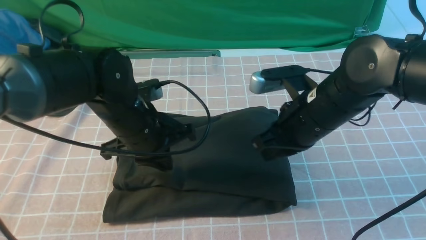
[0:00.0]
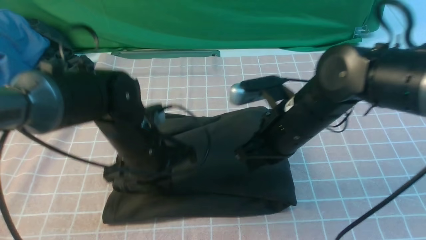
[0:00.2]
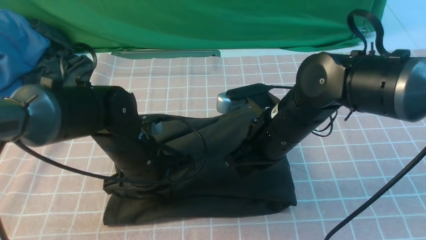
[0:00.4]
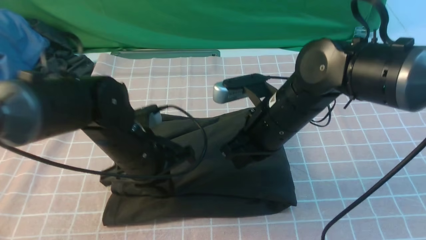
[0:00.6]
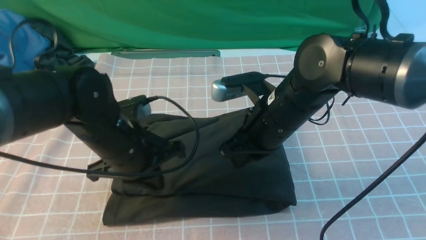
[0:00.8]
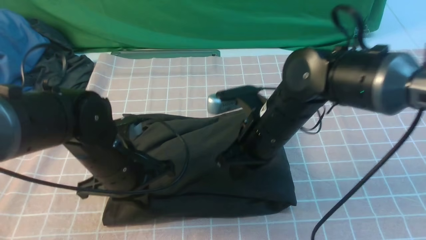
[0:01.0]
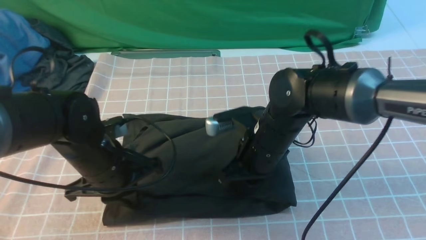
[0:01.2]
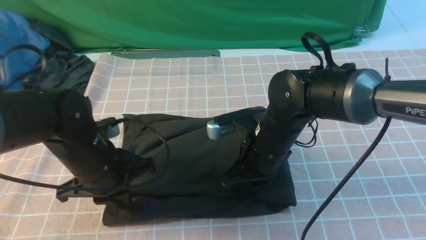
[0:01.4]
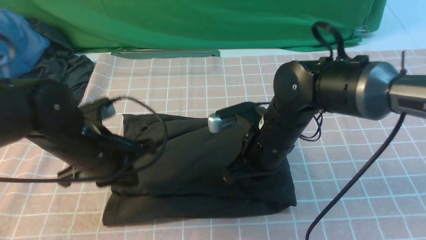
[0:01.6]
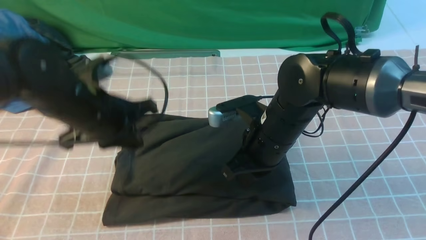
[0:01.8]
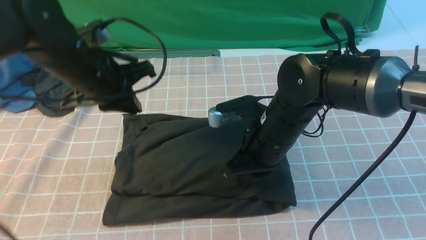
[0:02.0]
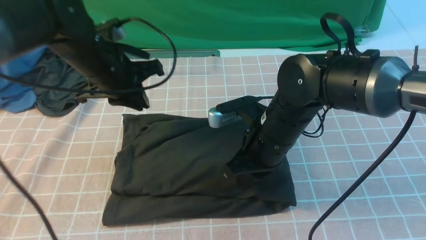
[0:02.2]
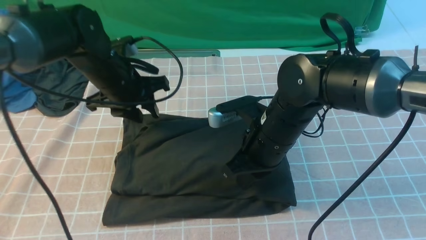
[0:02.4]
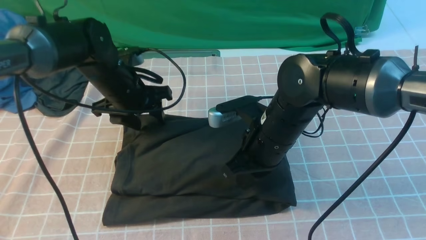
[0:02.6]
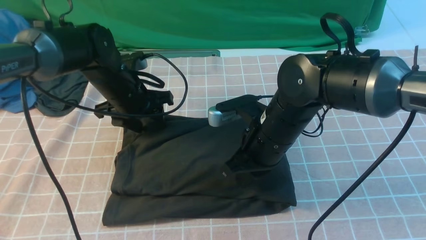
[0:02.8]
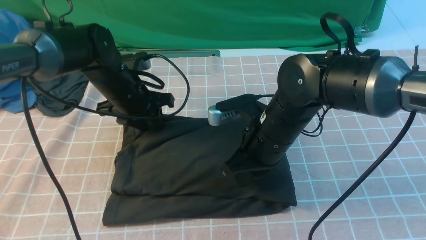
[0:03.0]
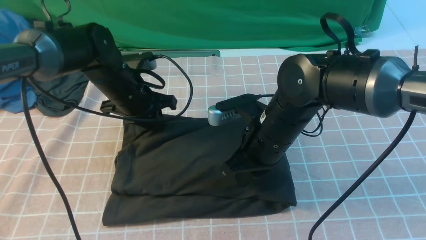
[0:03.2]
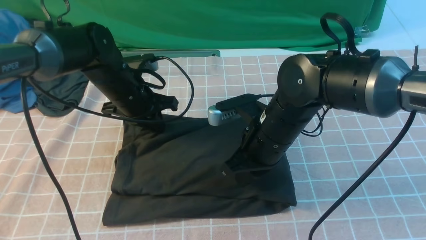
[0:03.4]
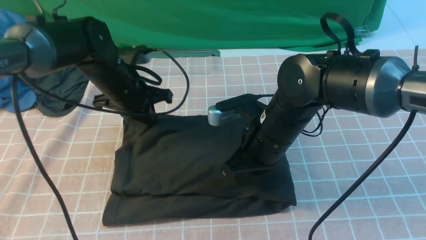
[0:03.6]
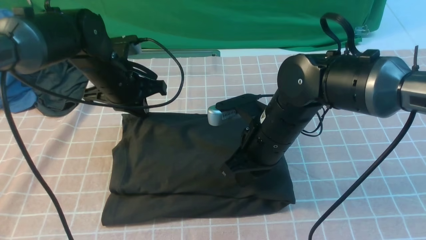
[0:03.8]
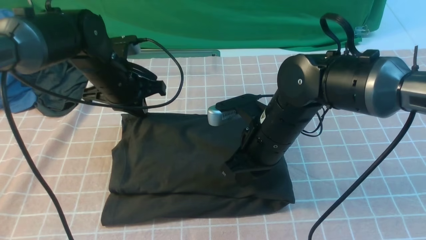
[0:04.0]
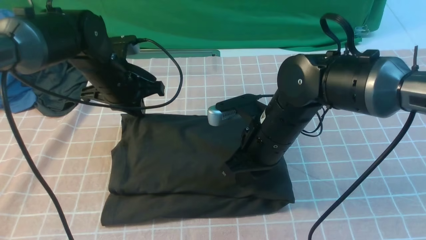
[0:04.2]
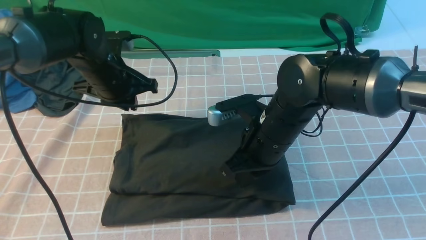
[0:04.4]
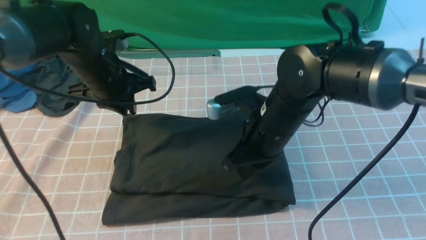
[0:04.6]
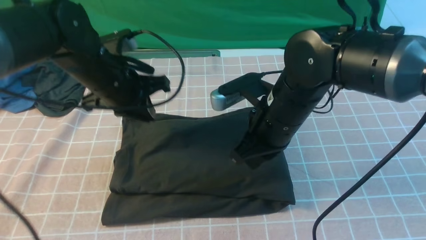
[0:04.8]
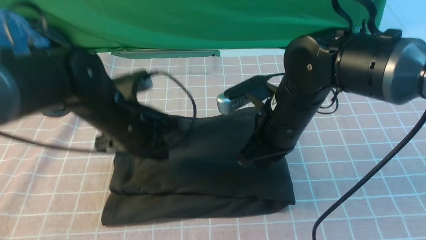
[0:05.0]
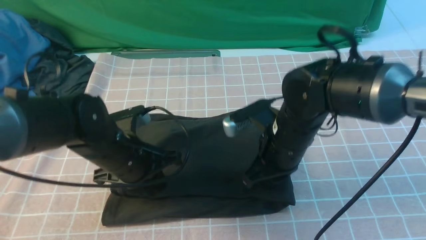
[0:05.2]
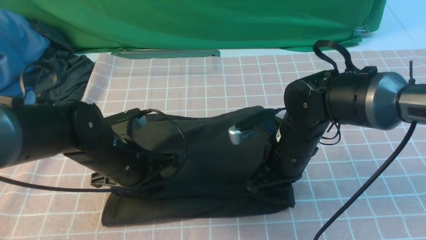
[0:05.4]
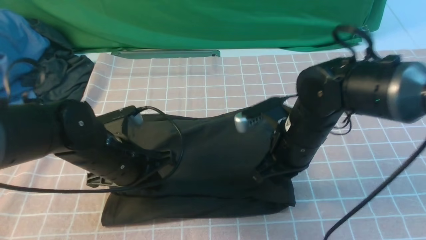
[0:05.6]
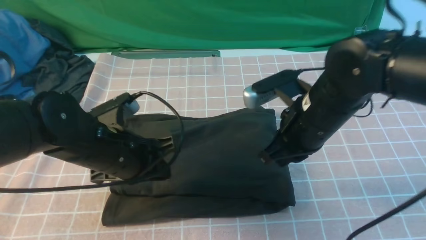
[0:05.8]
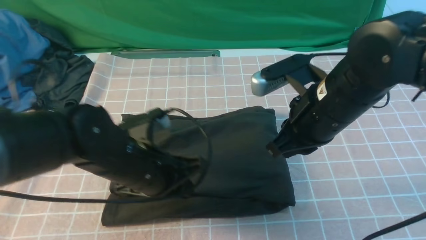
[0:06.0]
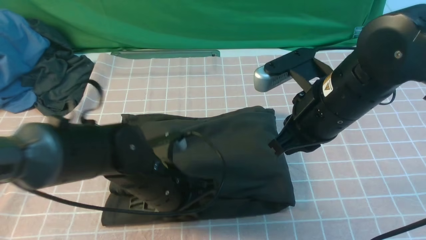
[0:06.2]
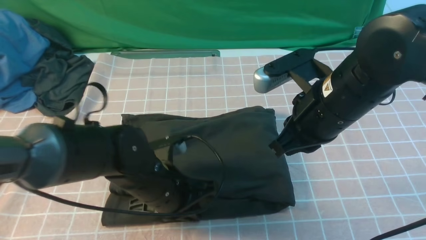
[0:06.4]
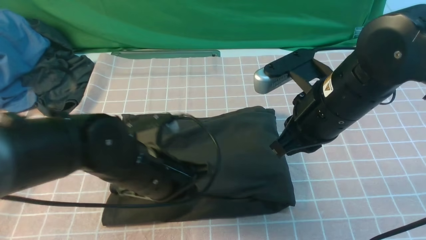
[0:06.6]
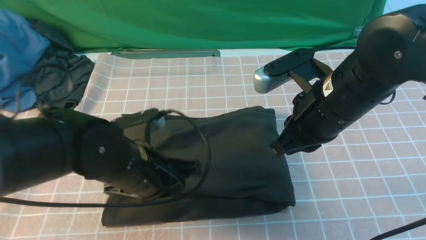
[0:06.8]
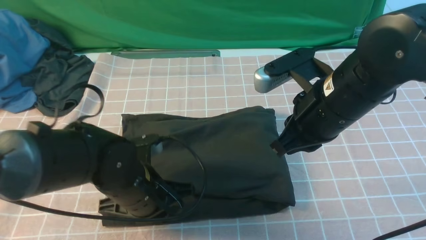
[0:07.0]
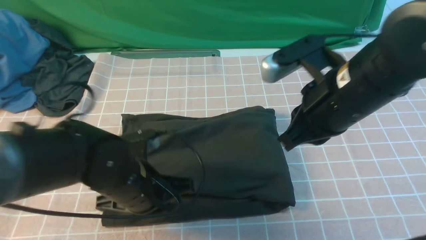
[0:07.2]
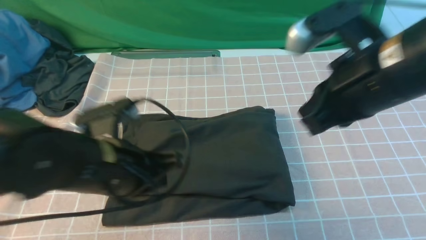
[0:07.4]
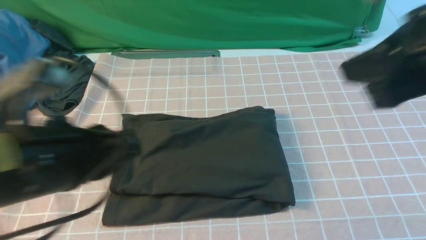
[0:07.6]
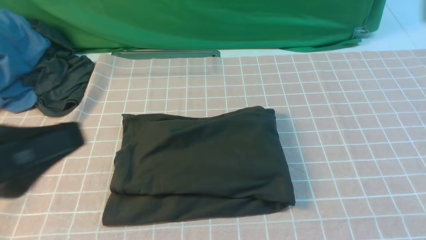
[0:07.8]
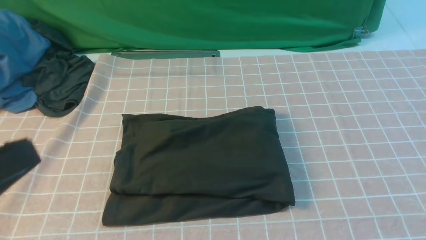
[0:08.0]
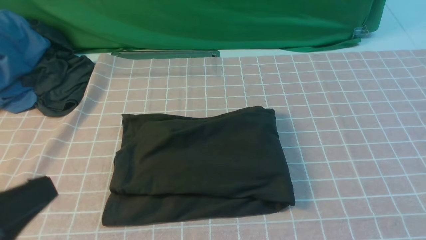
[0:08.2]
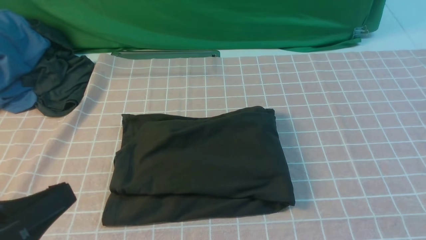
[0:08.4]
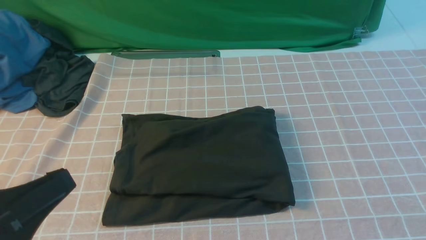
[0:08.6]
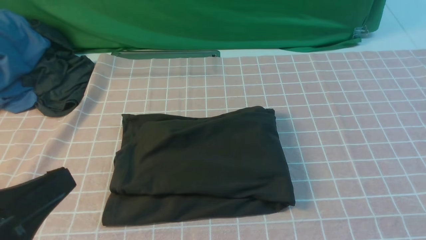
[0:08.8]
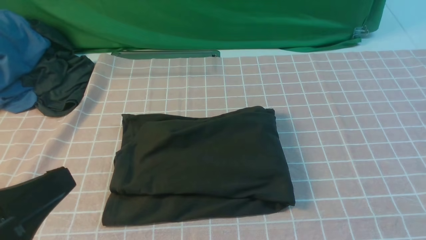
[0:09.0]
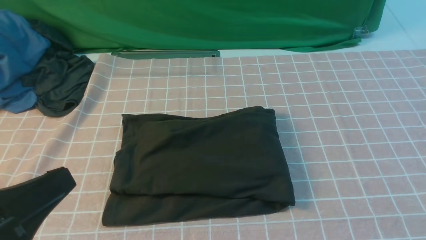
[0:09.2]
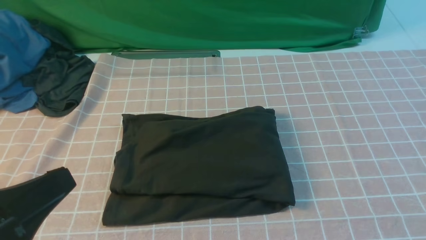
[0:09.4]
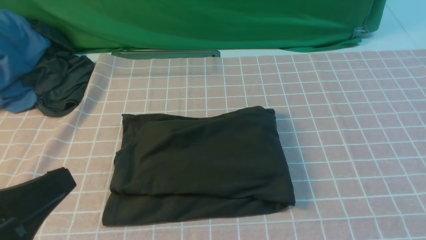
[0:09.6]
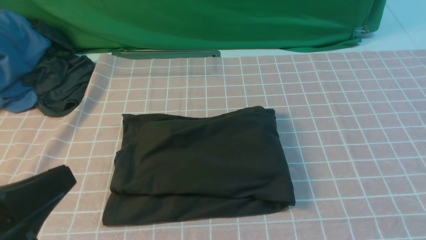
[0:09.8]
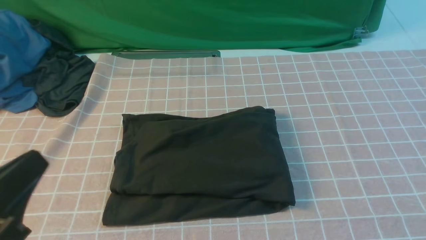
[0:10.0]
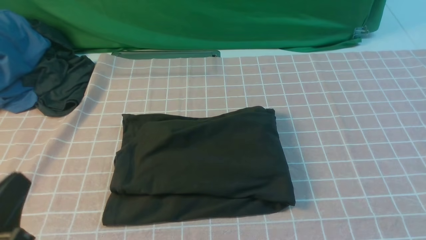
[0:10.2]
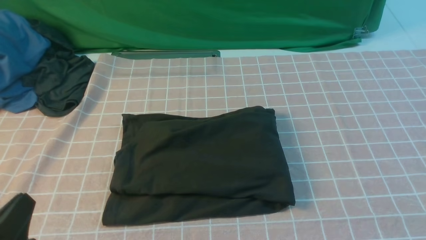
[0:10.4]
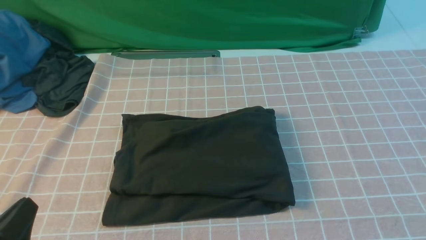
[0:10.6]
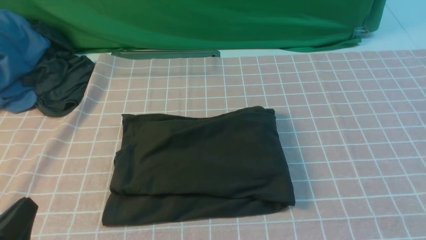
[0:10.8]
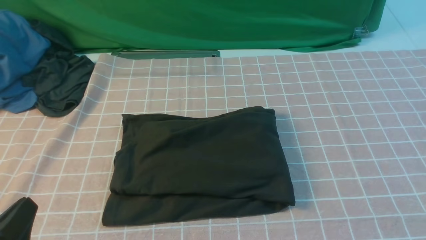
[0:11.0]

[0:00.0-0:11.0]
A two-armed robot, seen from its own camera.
0:00.0 to 0:01.6: The left gripper travels to the left by roughly 5 cm, while the right gripper ends up approximately 5 cm from where it was.
0:01.6 to 0:03.2: The left gripper shifts roughly 15 cm forward, and opens, then closes again.
0:03.2 to 0:04.8: The left gripper heads backward, covering roughly 5 cm.
0:04.8 to 0:06.2: The left gripper is displaced backward, to the right and downward by about 15 cm, while the right gripper travels upward by about 5 cm.
0:06.2 to 0:07.8: The left gripper is displaced upward, backward and to the left by about 25 cm; the right gripper heads upward, backward and to the right, covering some 25 cm.
0:07.8 to 0:09.4: The right gripper shifts approximately 15 cm backward, to the right and downward; the left gripper goes approximately 5 cm downward.
0:09.4 to 0:11.0: The left gripper shifts approximately 10 cm downward.

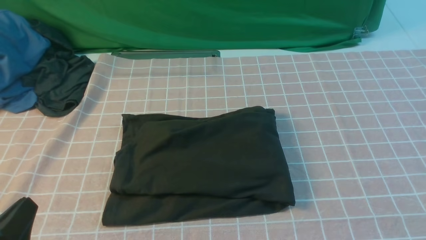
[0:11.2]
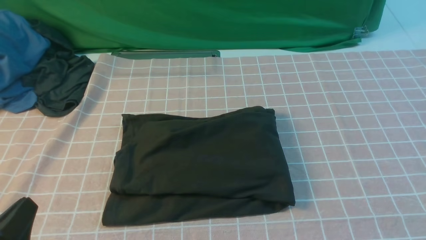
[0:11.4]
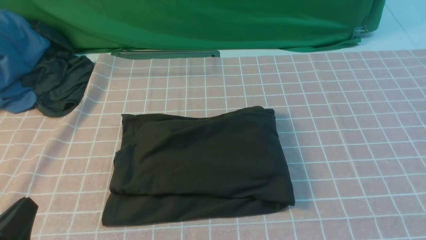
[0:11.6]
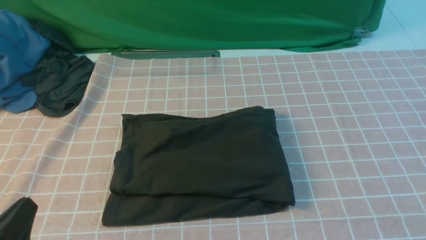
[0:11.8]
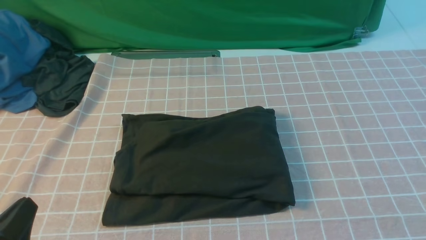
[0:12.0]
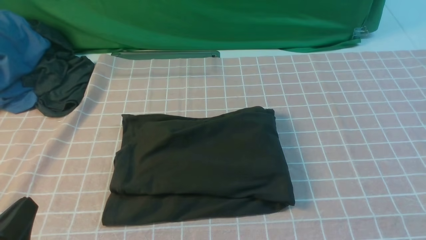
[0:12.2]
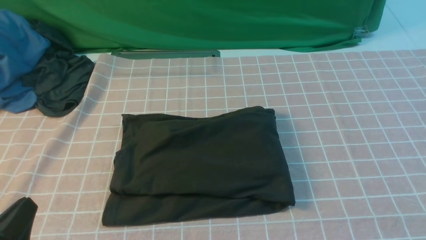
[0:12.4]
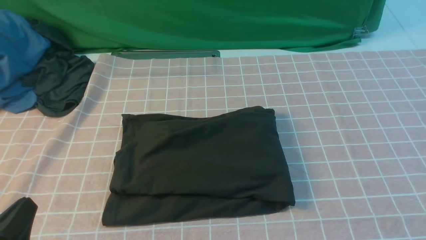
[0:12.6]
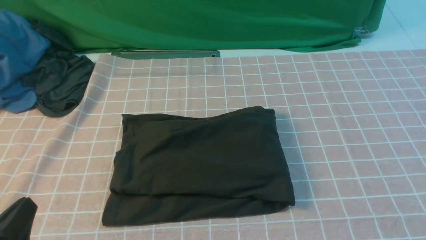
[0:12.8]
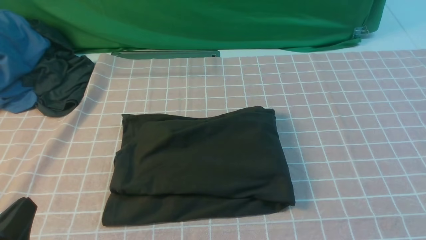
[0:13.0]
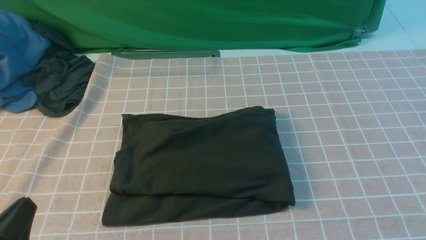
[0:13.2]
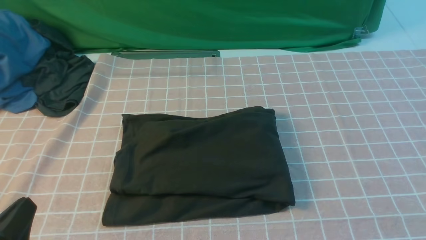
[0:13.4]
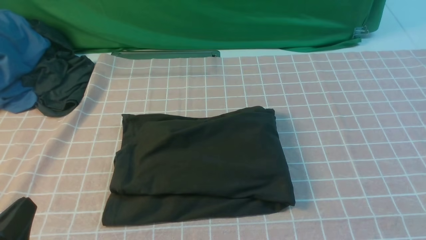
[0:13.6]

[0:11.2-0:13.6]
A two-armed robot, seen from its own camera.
0:12.4 to 0:13.6: The two grippers keep their place.
